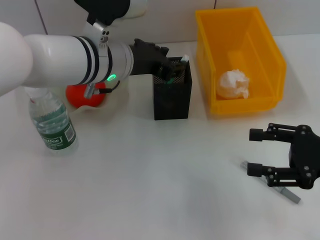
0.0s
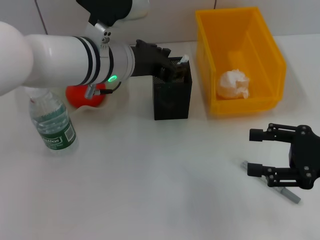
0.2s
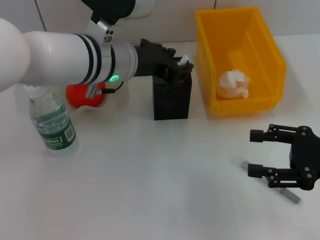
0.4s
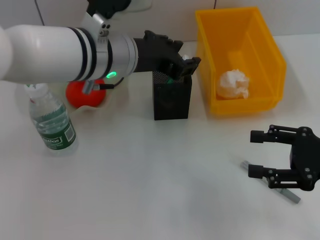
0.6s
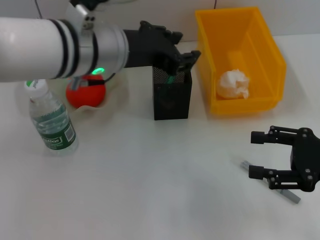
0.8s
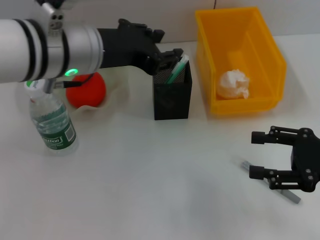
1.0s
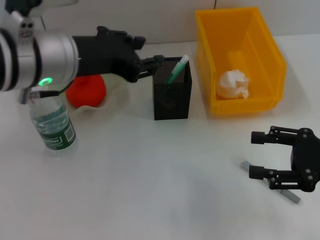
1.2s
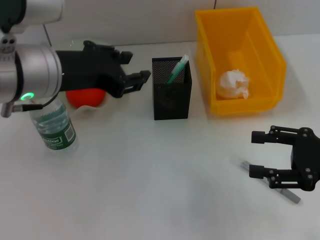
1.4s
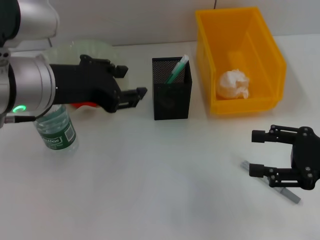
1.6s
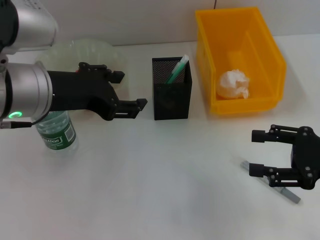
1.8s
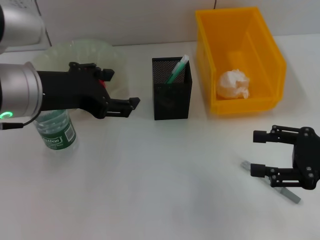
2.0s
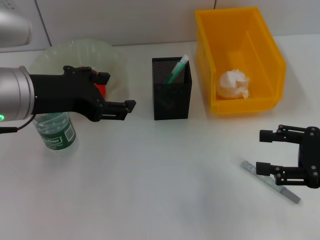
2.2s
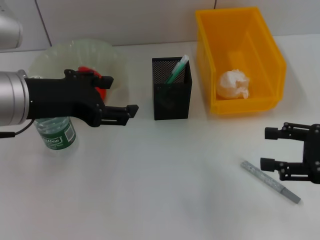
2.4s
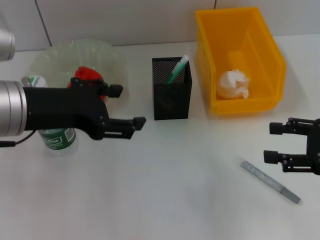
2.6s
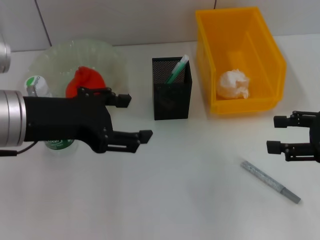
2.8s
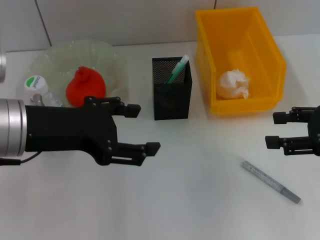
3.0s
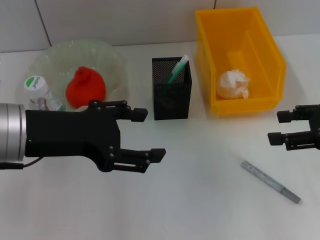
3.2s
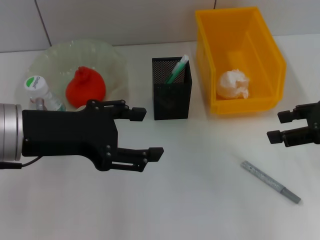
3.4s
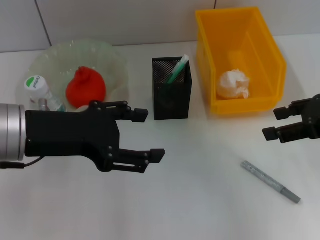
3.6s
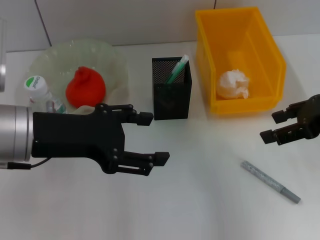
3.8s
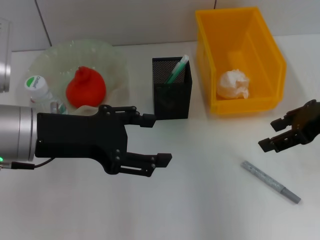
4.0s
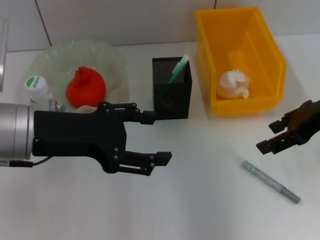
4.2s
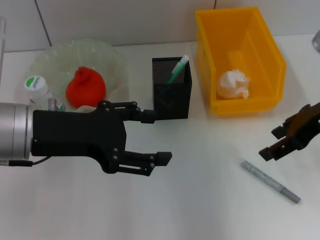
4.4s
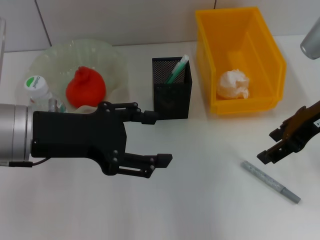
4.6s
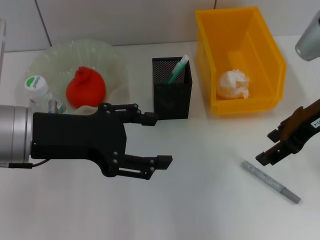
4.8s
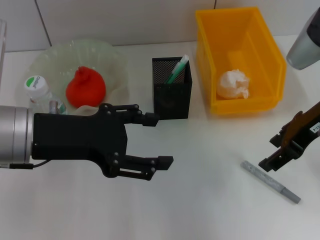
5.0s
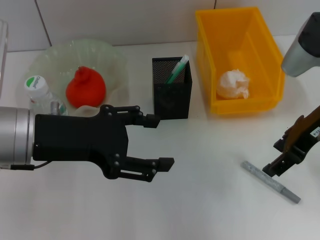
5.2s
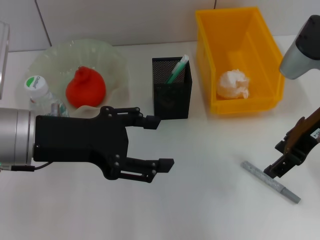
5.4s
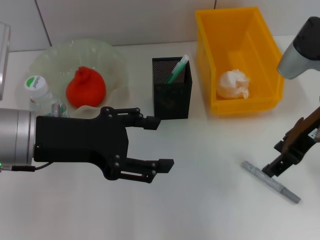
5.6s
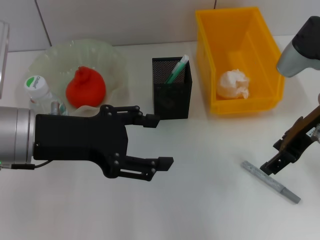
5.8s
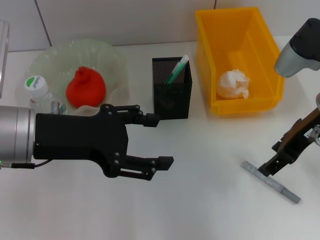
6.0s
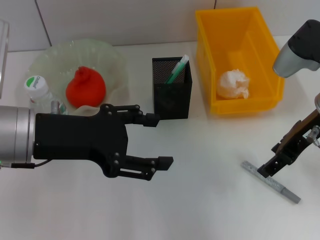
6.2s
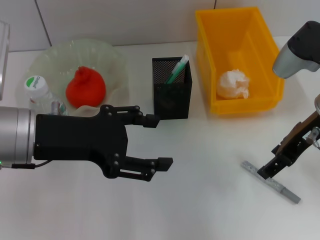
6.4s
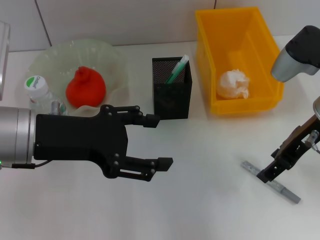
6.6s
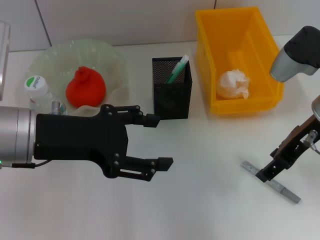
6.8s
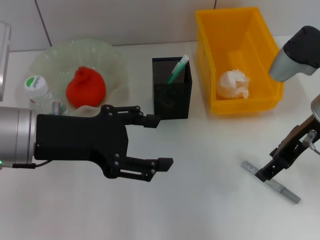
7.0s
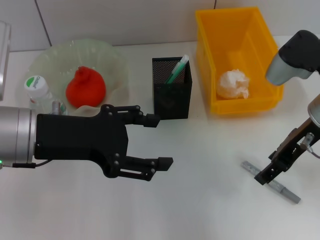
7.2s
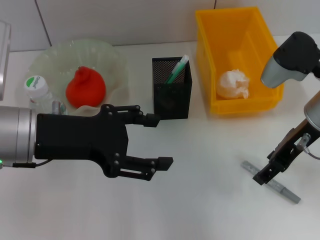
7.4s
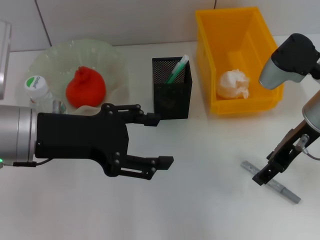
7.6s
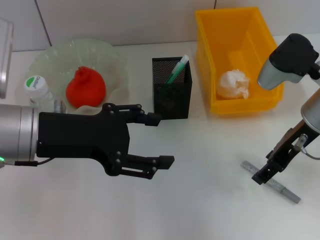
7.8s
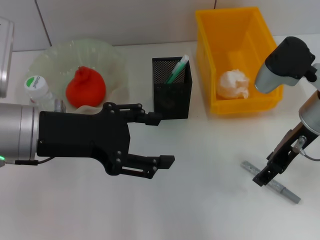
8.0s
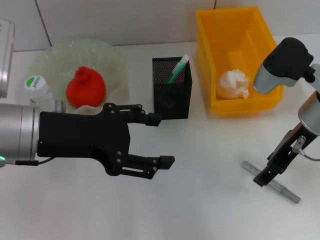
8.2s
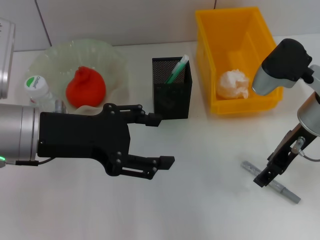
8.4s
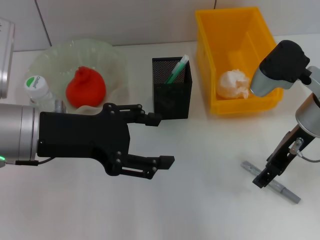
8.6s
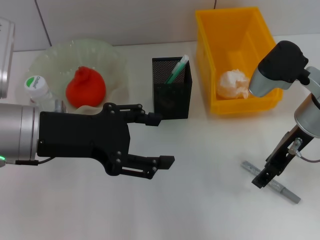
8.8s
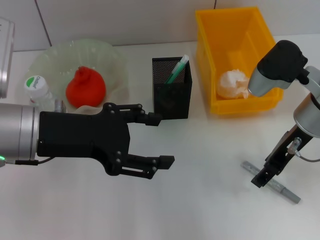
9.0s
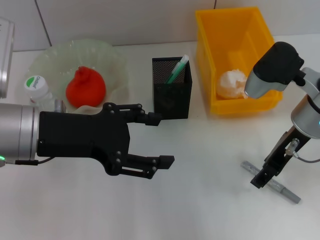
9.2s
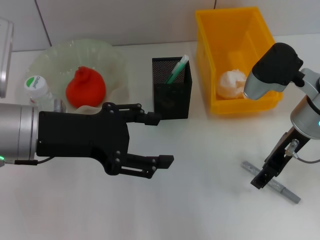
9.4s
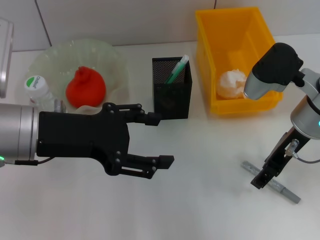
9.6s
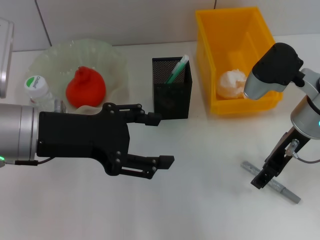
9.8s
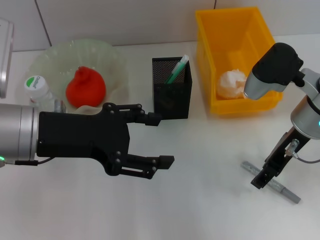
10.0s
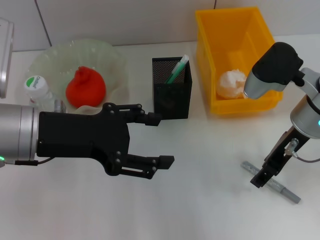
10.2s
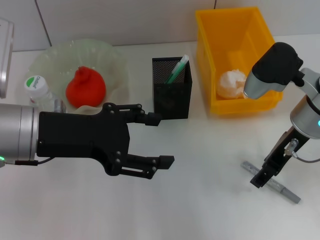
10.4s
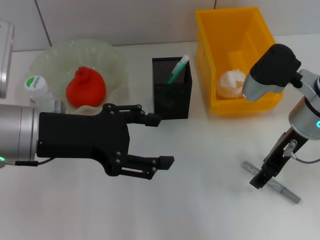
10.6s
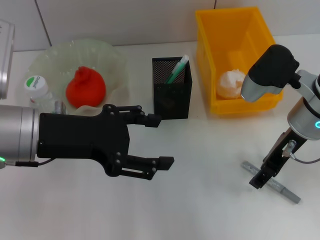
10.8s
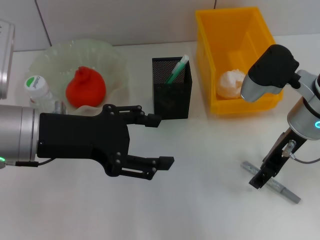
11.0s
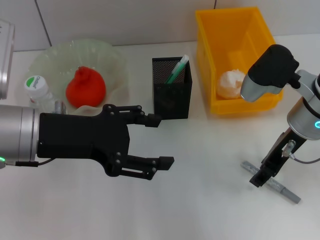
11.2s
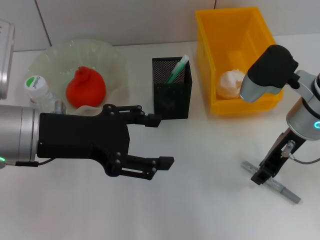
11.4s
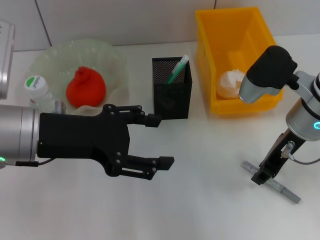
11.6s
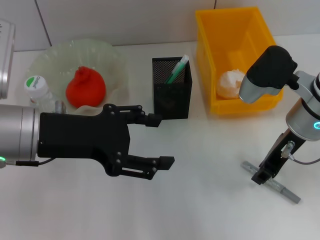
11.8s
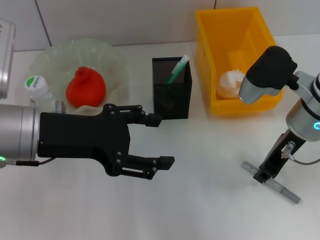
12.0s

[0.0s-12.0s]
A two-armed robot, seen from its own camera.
0.0s to 1.6s: The left gripper moves to the left and backward, approximately 10 cm.
1.6s to 3.0s: The right gripper ends up approximately 5 cm from where it was. The left gripper opens.
3.0s to 4.4s: The right gripper shifts roughly 10 cm to the left and forward.
4.4s to 7.6s: There are only small adjustments of the grippers.
7.6s to 9.0s: The grippers move only a little.
9.0s to 10.4s: Both grippers stay put.
10.4s to 12.0s: The right gripper closes its fingers.

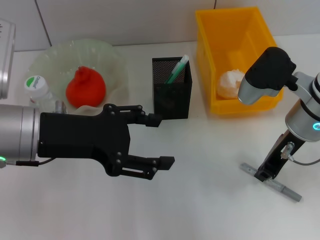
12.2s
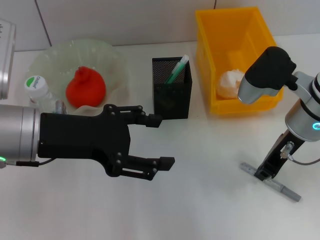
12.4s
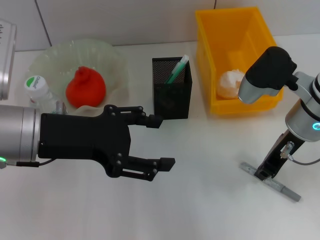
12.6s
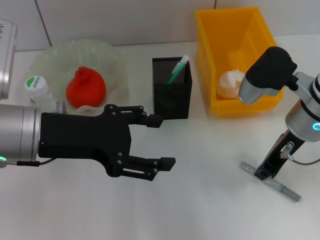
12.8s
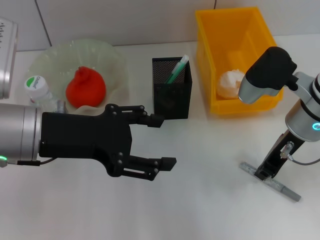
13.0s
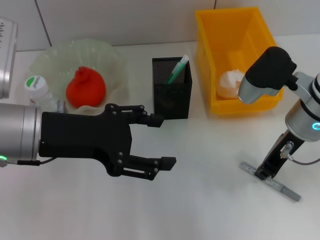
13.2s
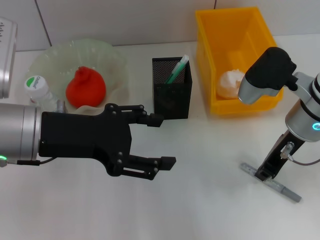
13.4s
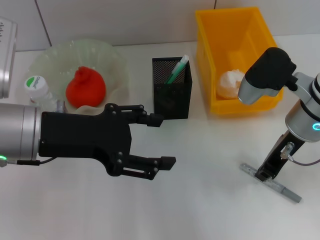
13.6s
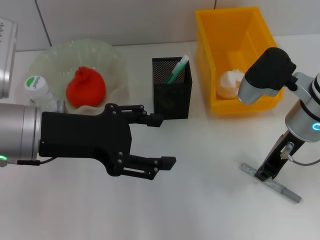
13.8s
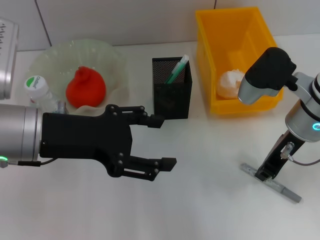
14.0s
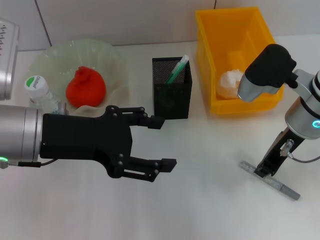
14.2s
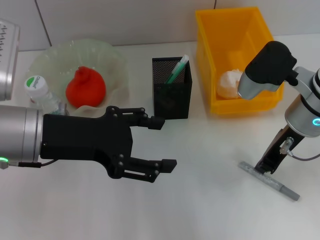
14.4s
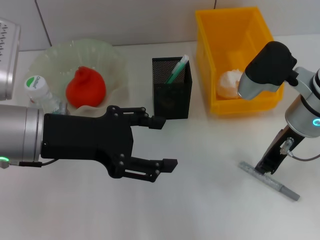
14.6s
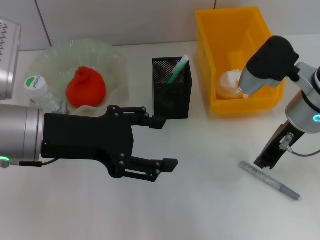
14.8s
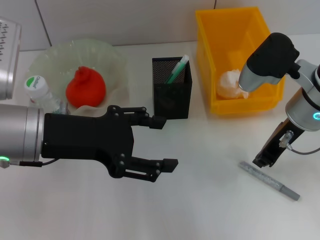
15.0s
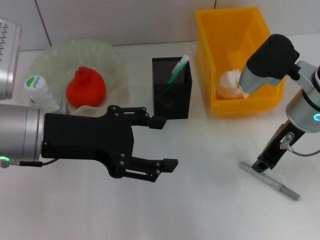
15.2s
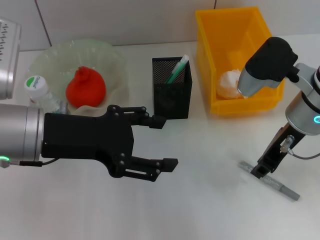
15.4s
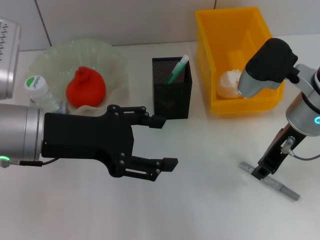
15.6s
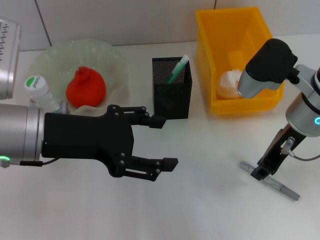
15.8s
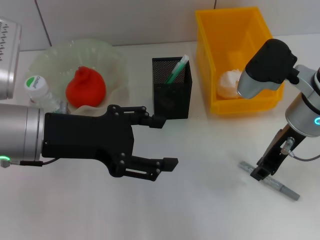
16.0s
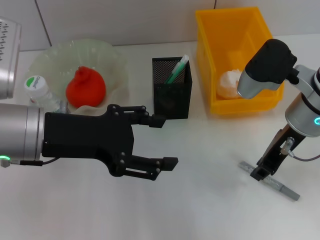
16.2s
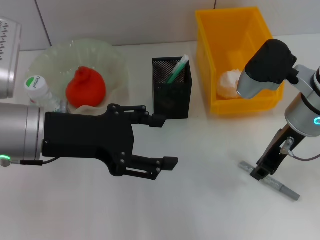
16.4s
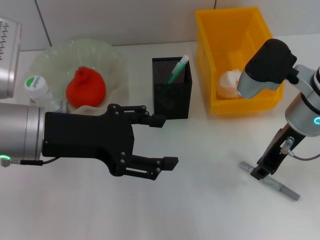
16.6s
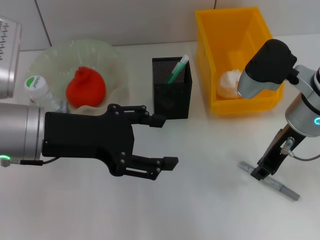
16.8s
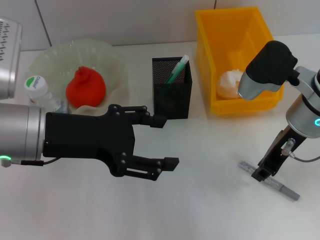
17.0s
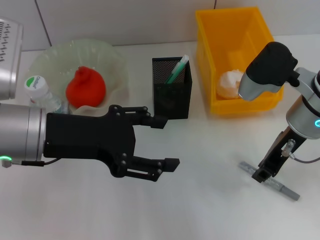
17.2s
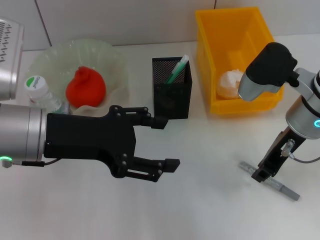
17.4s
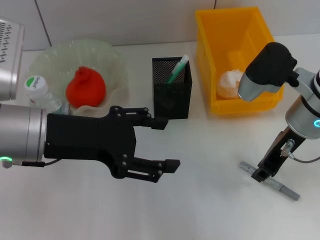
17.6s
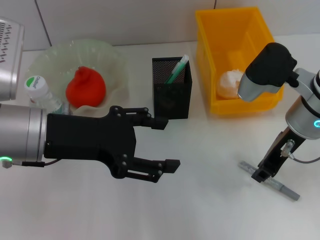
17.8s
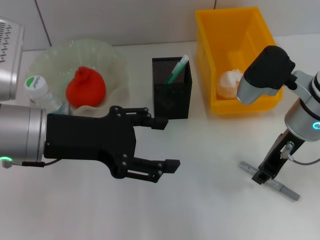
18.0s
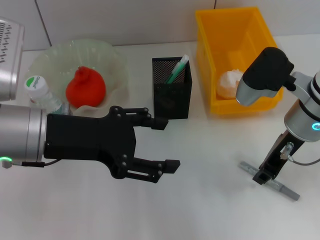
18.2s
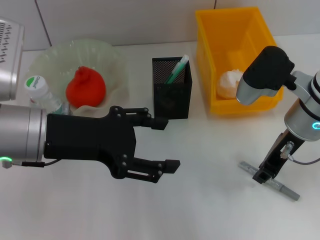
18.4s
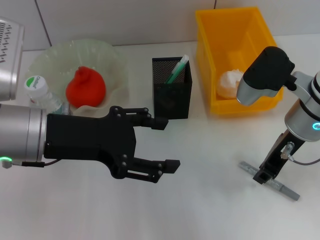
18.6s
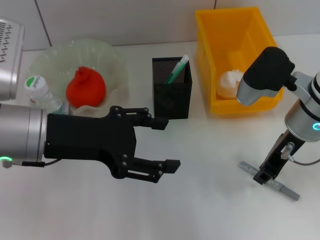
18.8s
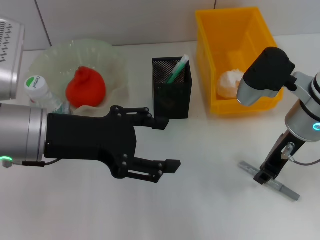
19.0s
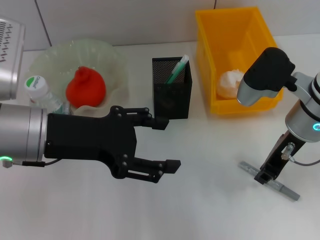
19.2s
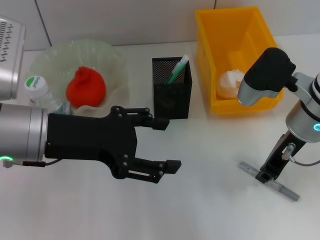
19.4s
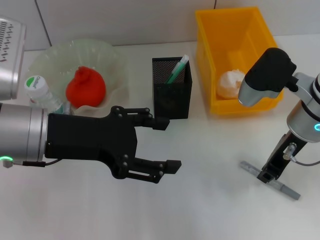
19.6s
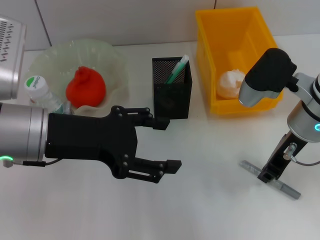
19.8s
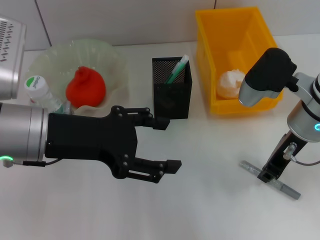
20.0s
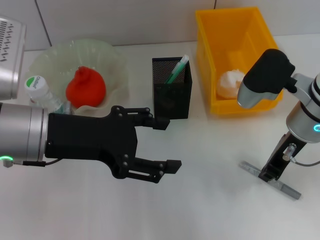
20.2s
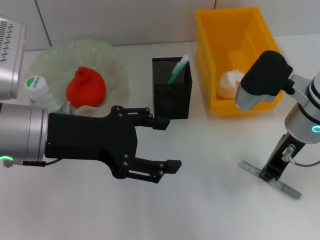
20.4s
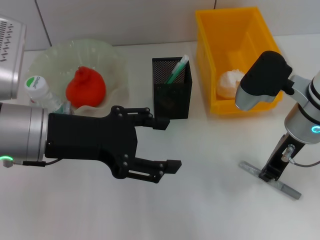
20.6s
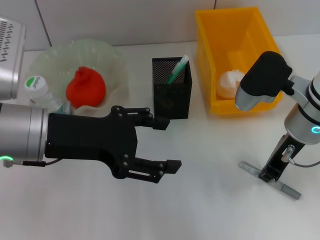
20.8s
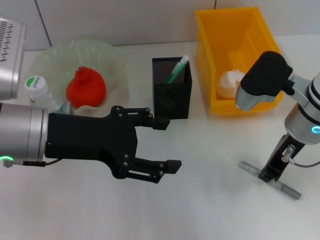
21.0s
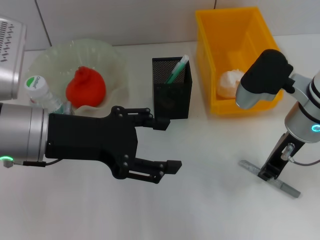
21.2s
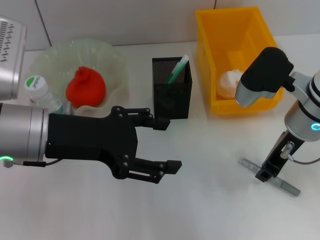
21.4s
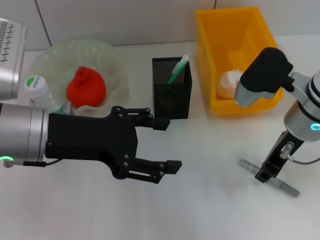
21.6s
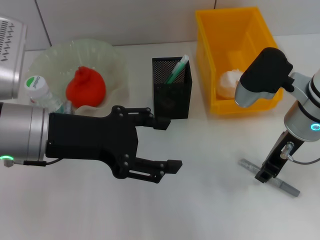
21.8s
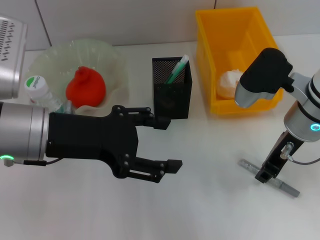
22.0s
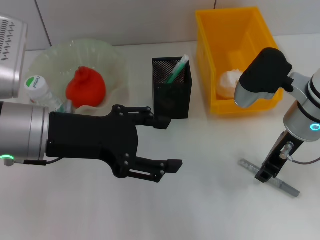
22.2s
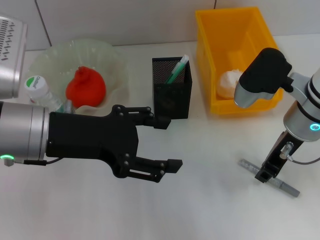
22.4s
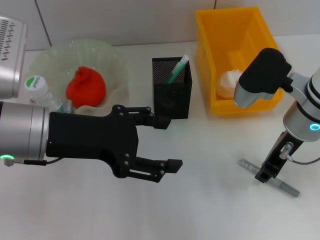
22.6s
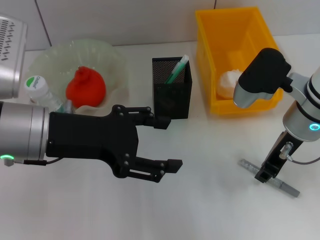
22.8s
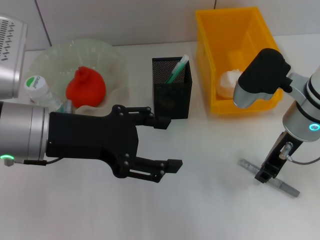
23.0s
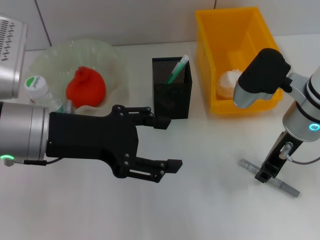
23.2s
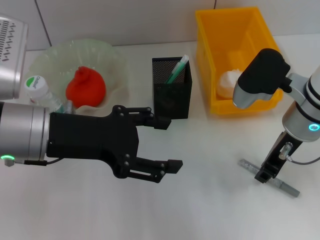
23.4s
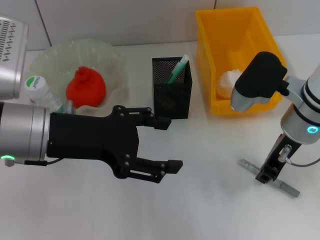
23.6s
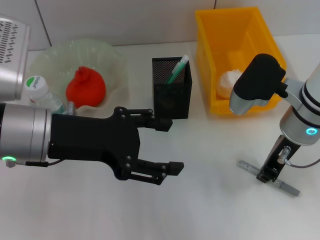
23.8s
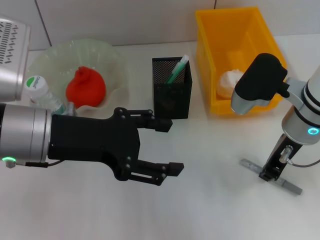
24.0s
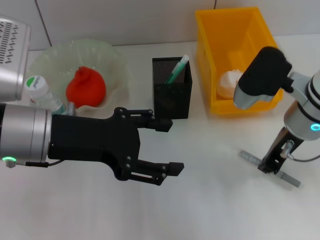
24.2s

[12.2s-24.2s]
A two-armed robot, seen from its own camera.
Step, 12.2s to 23.8s: Grab the gray glue with the right hand.
12.2s to 13.8s: The two grippers keep their place.
13.8s to 15.2s: The grippers move only a little.
15.2s to 19.8s: The two grippers keep their place.
19.8s to 22.6s: Both grippers stay about where they are.
22.6s to 24.2s: Neither gripper changes place.
